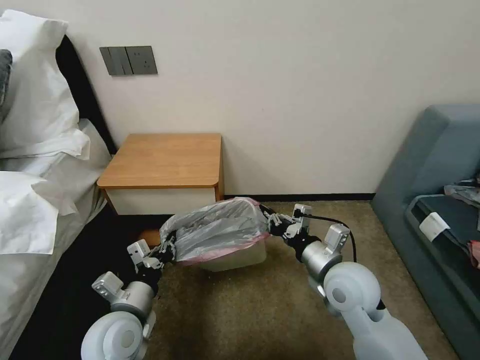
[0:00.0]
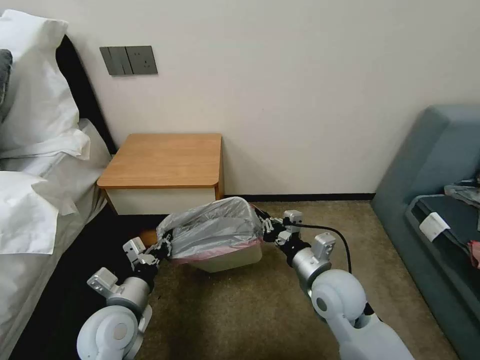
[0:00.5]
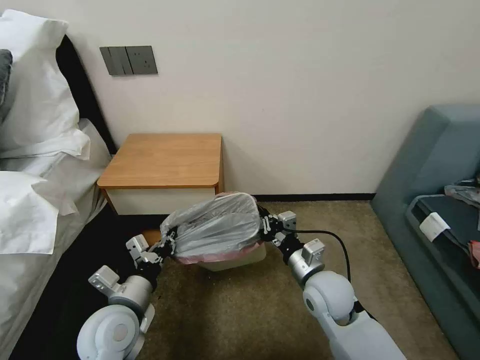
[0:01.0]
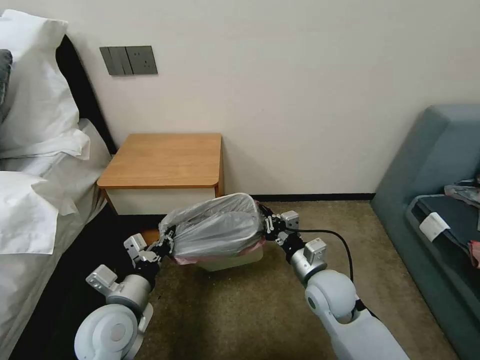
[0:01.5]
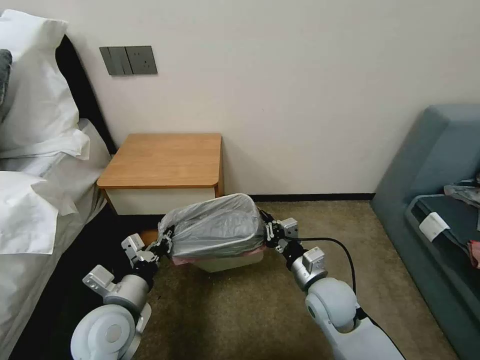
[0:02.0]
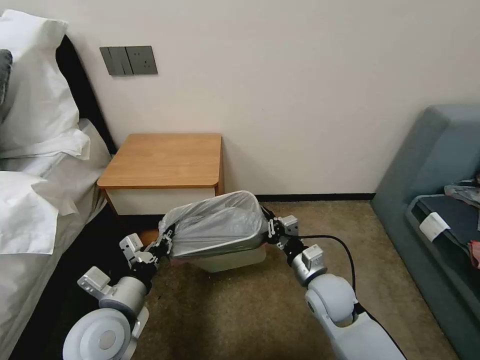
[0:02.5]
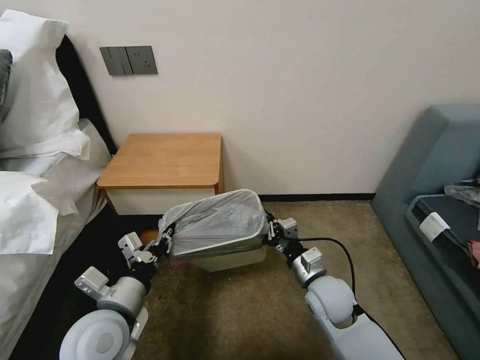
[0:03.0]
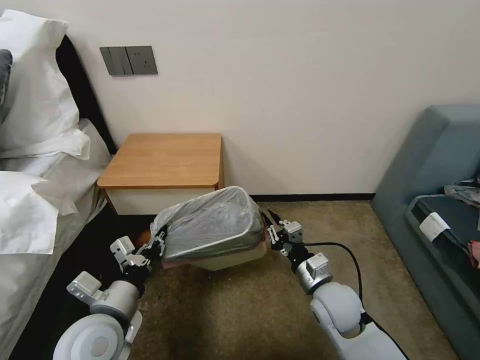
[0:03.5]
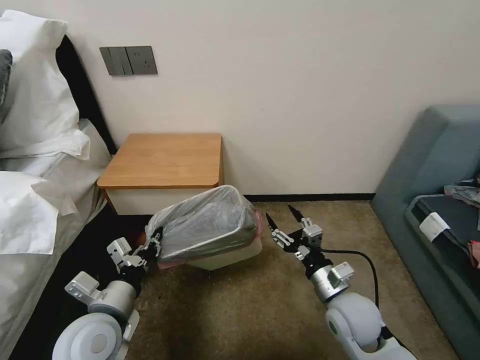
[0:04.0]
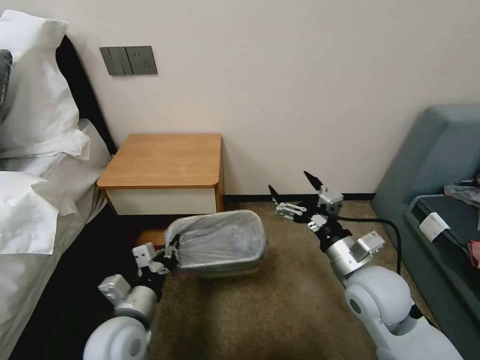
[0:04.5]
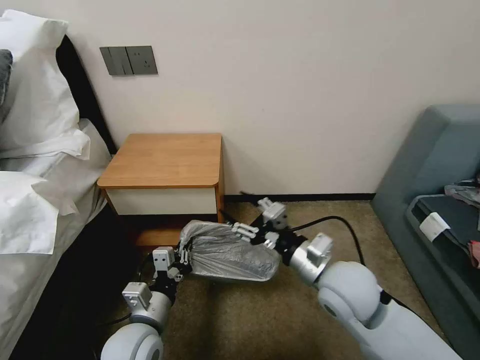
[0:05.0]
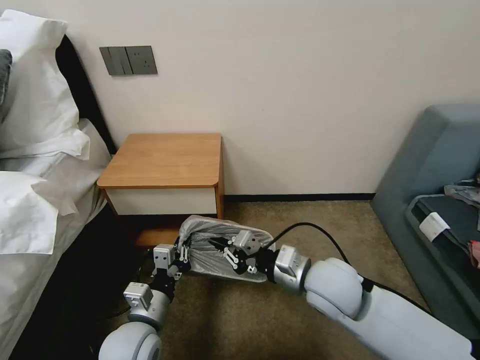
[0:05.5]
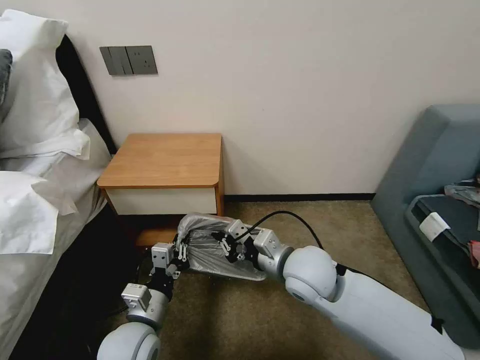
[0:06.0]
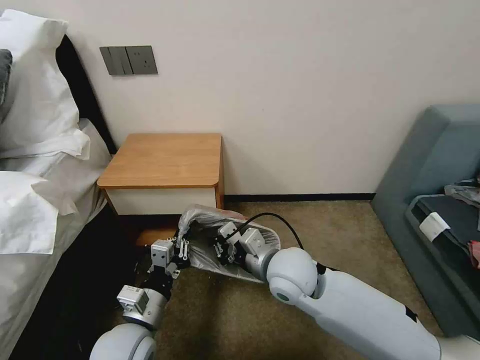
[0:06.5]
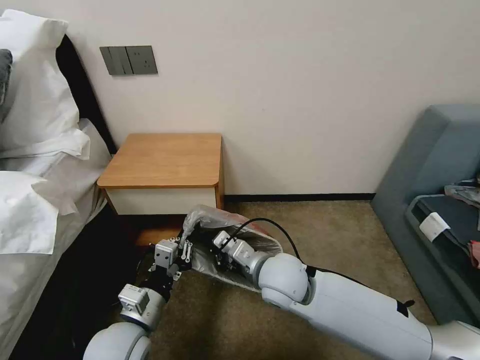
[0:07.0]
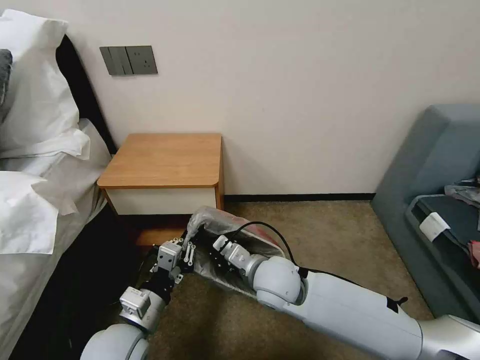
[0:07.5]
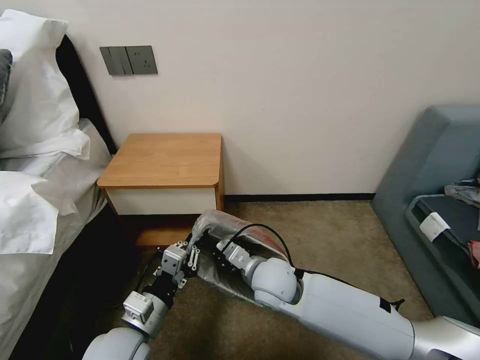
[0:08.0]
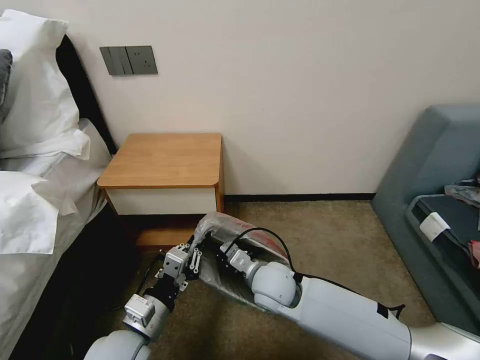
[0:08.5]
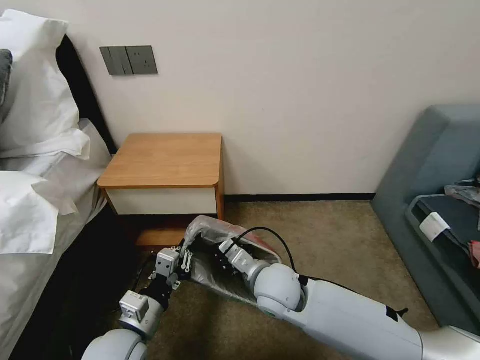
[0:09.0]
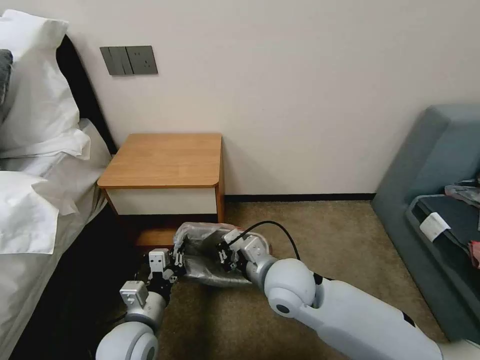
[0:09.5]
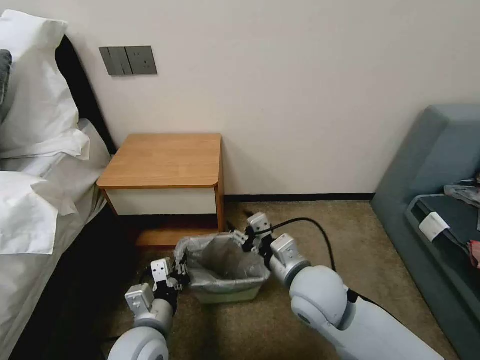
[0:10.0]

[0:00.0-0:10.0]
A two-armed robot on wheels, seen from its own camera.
Task of the whole recording: Pick up the garbage bag from the table and place it over the trash can.
0:00.0 to 0:02.0: The right gripper shifts about 5 cm downward.
0:02.0 to 0:04.0: The right gripper opens up.
0:04.0 to 0:06.0: The left gripper is displaced downward and to the right by about 10 cm. The right gripper travels to the left and upward by approximately 15 cm, and closes up.
0:06.0 to 0:08.0: The right gripper shifts approximately 10 cm downward and to the left.
0:08.0 to 0:10.0: The right gripper travels to the right and upward by some 10 cm, and opens.

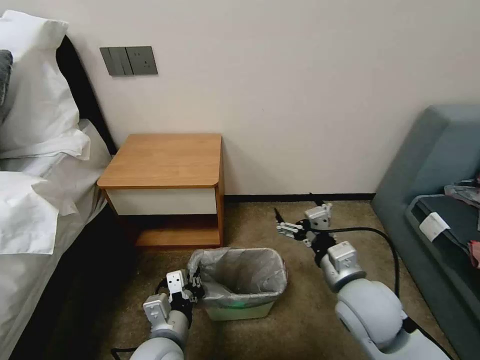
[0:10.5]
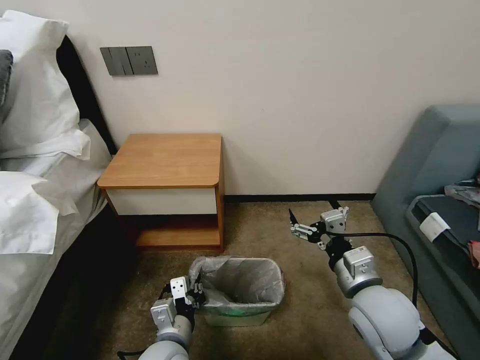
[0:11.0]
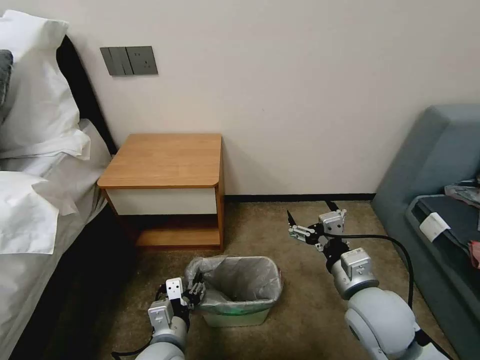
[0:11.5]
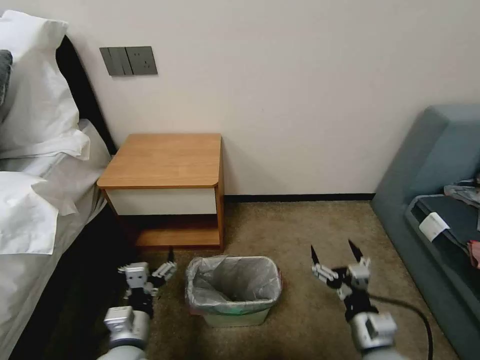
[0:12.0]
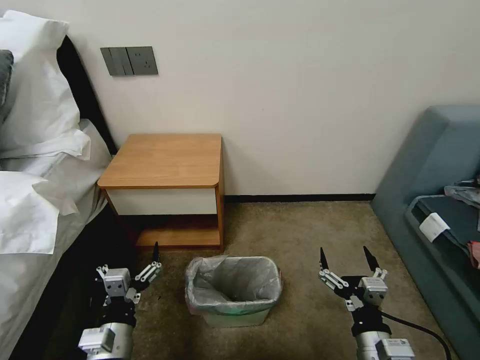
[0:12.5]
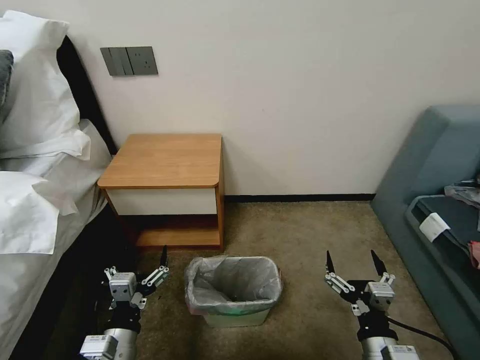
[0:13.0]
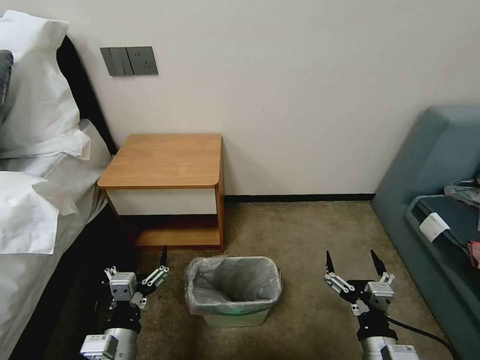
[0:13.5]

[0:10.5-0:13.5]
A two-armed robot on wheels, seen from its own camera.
Task of the whole recording: Pick up the garbage bag from the table and place it over the trash can.
0:10.5 to 0:12.0: The left gripper is displaced to the left by some 5 cm, and opens its fingers; the right gripper is displaced downward, backward and to the right by roughly 15 cm.
0:12.0 to 0:13.5: The right gripper heads backward, covering about 5 cm.

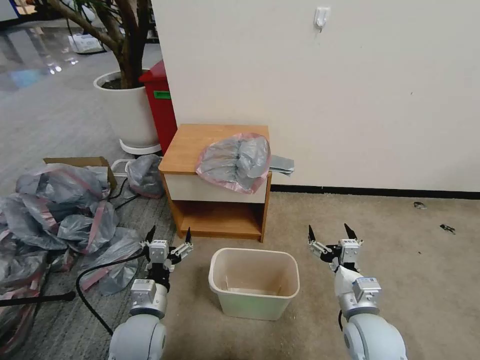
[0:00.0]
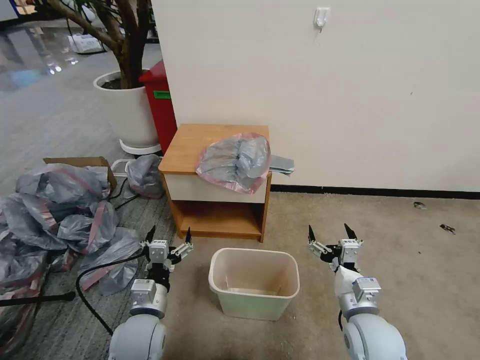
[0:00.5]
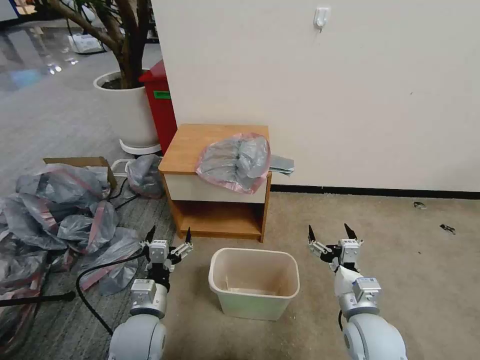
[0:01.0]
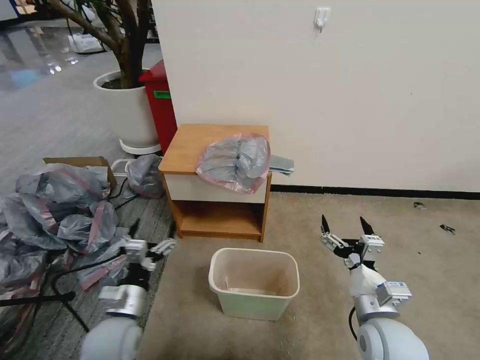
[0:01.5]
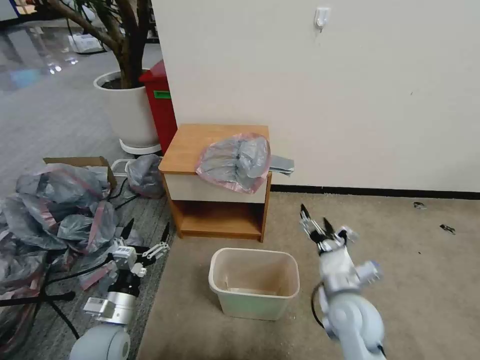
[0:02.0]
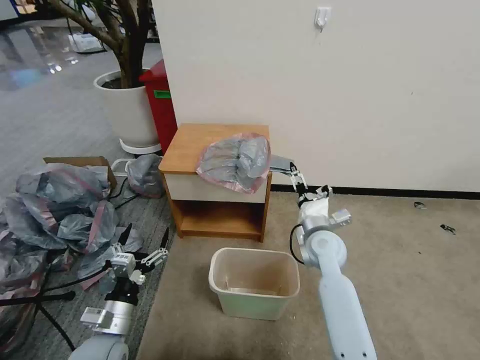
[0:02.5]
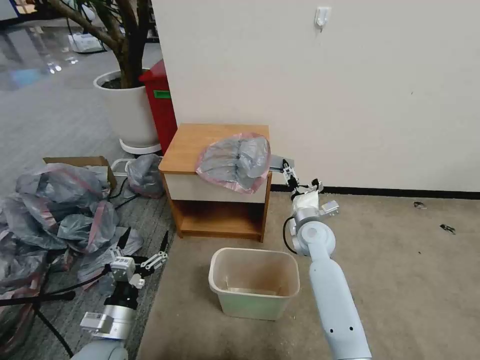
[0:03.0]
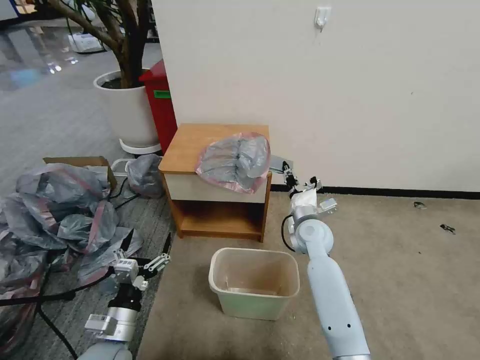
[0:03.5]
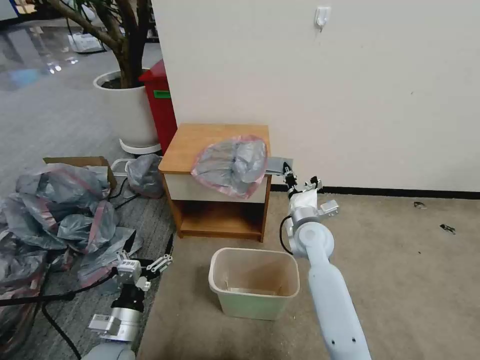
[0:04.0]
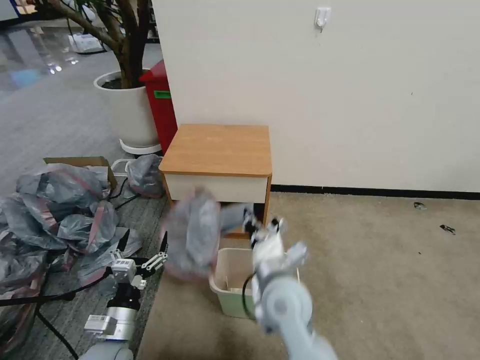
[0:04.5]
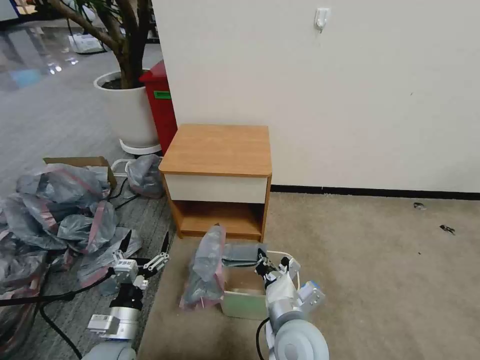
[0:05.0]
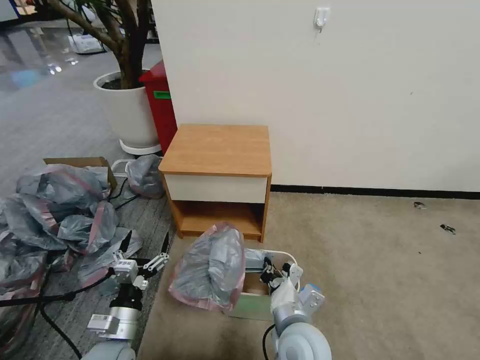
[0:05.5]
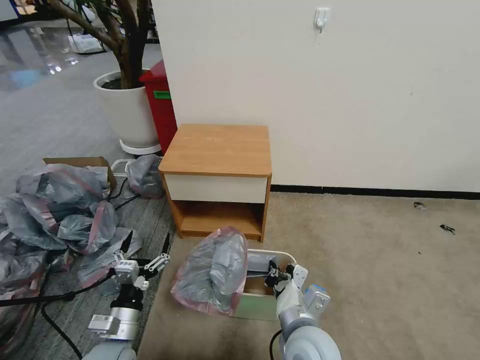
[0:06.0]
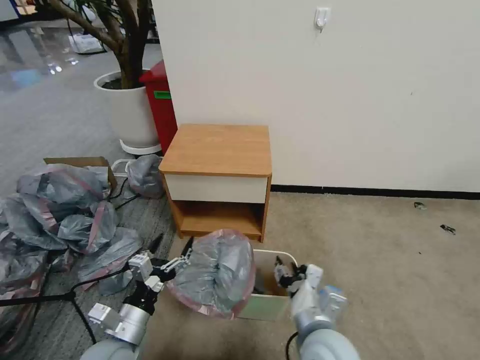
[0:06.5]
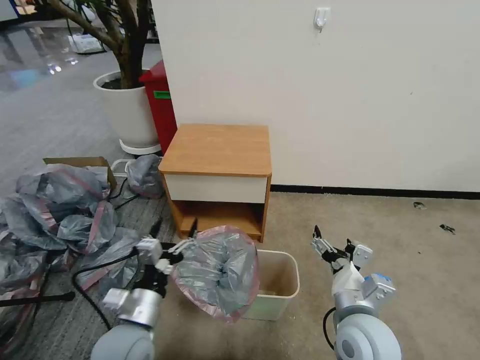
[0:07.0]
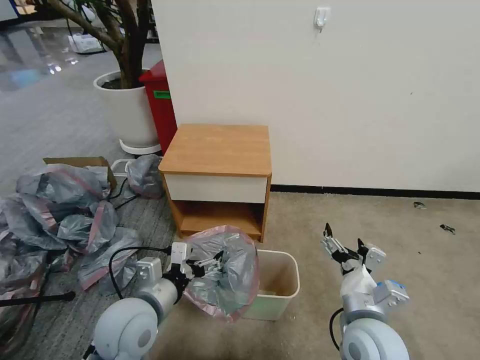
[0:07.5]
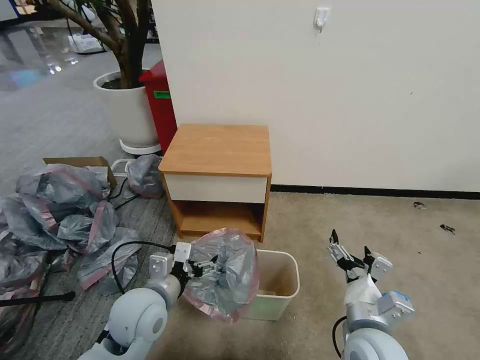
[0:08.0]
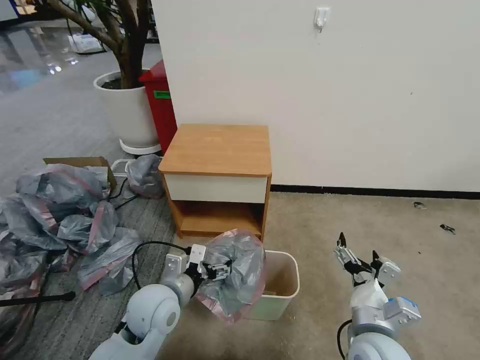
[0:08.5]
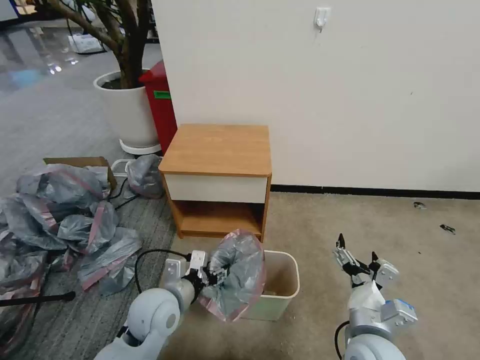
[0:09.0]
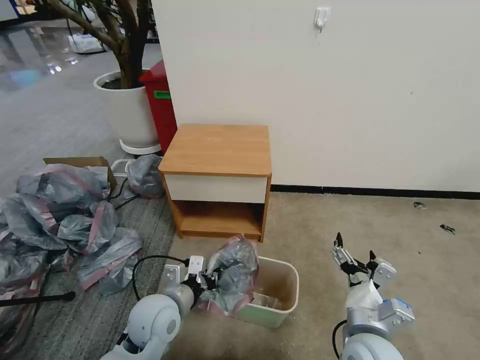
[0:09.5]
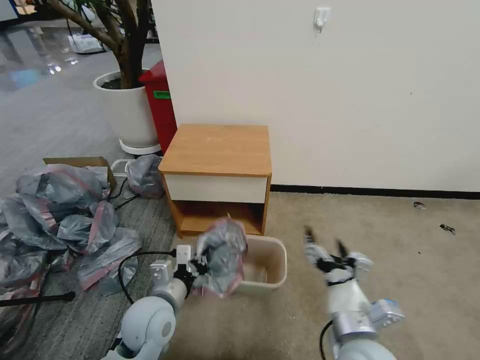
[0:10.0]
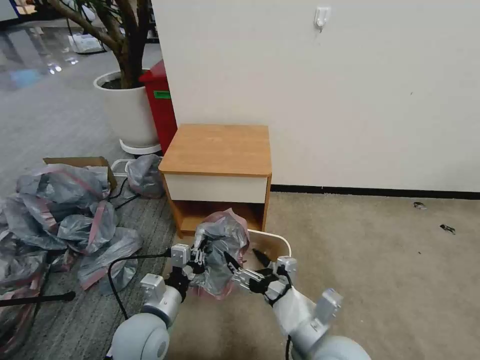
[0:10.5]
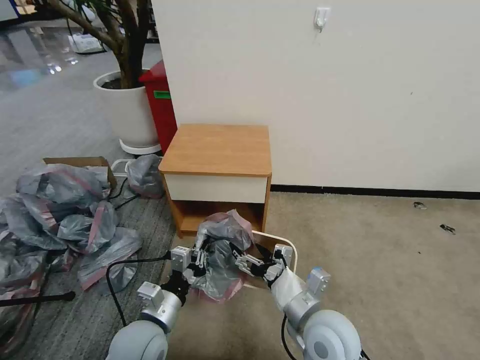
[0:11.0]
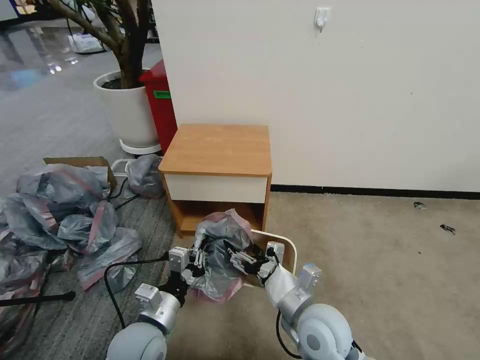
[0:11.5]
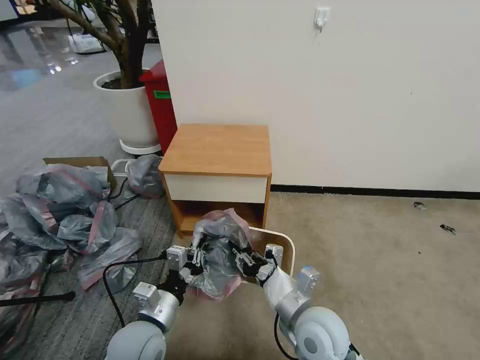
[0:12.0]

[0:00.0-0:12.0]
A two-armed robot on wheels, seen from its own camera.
Task of the whole recording: Pick up the garbage bag from the table and place it over the trash can.
0:02.0 to 0:04.0: The right gripper shifts some 15 cm forward, and closes up.
0:04.0 to 0:06.0: The right gripper goes about 25 cm backward.
0:06.0 to 0:08.0: The right gripper is displaced to the right by approximately 10 cm, and opens. Meanwhile the left gripper goes approximately 15 cm upward, to the right and forward.
0:08.0 to 0:10.0: The left gripper closes up.
0:10.0 to 0:12.0: The right gripper shifts roughly 10 cm to the left and forward, and closes its fingers.
